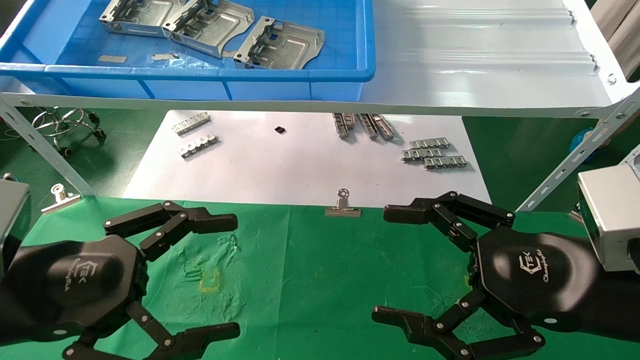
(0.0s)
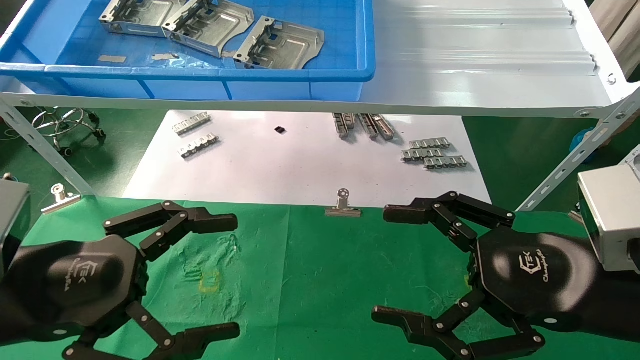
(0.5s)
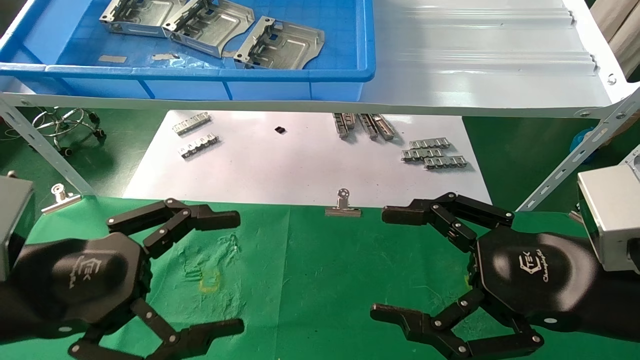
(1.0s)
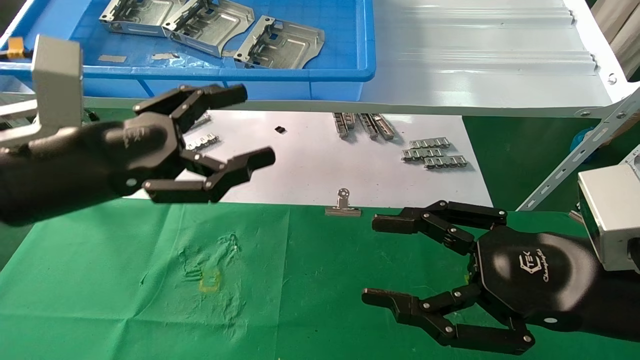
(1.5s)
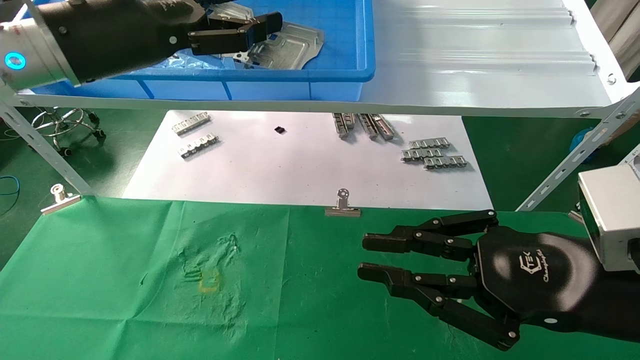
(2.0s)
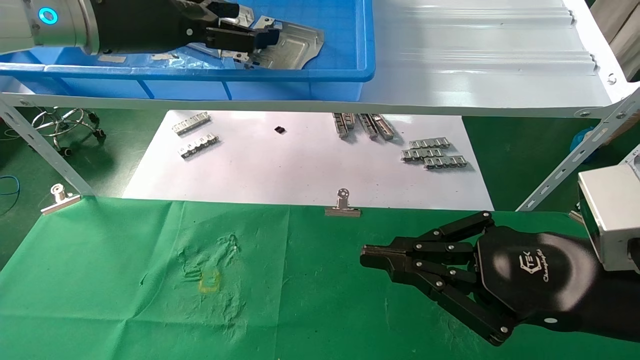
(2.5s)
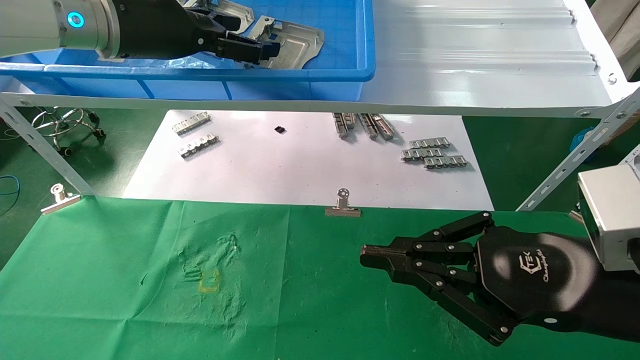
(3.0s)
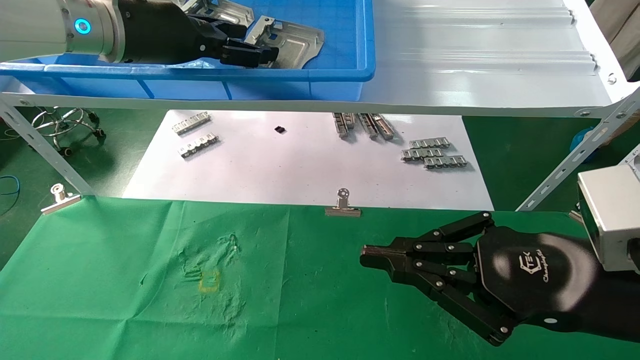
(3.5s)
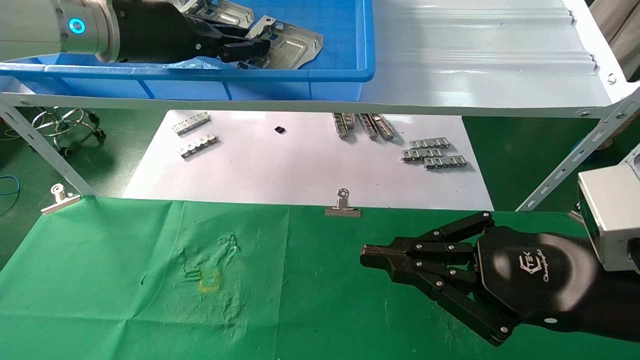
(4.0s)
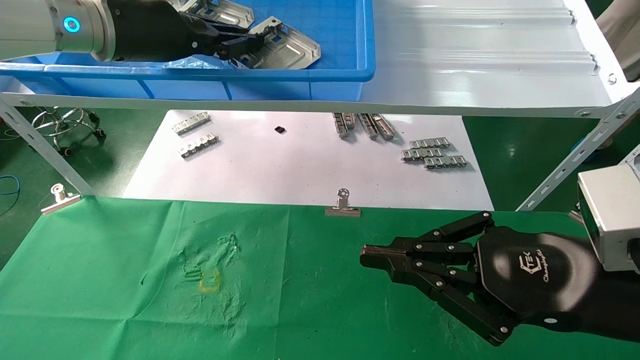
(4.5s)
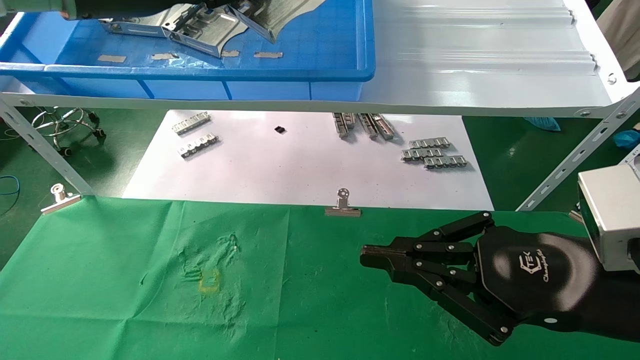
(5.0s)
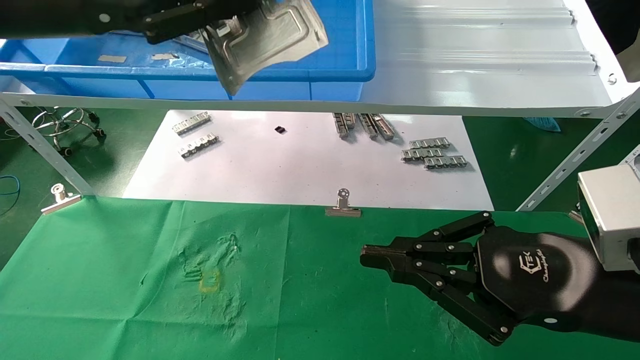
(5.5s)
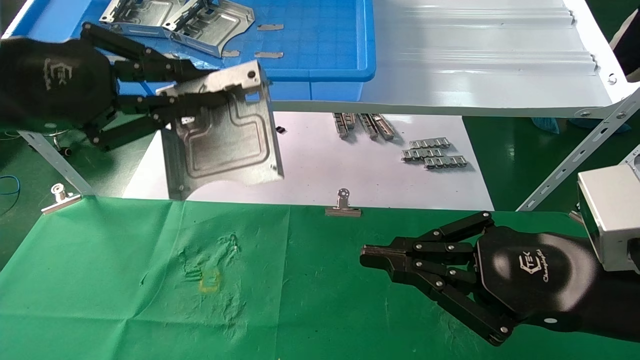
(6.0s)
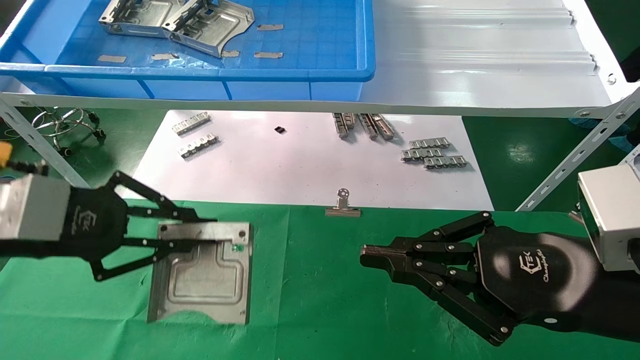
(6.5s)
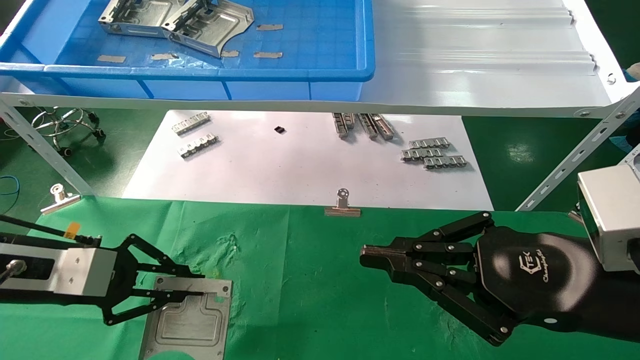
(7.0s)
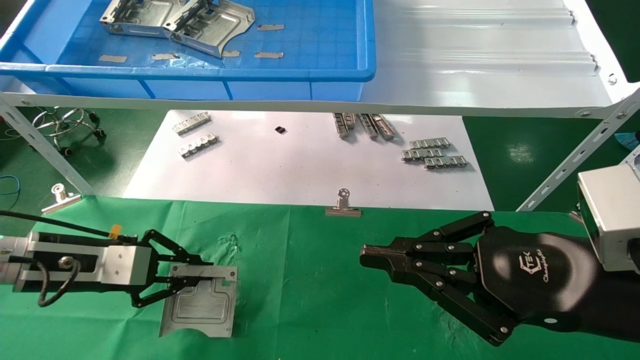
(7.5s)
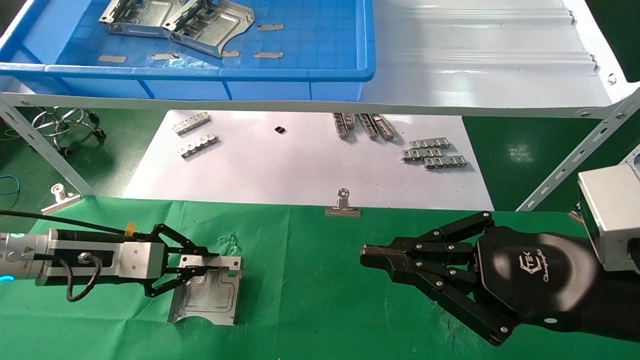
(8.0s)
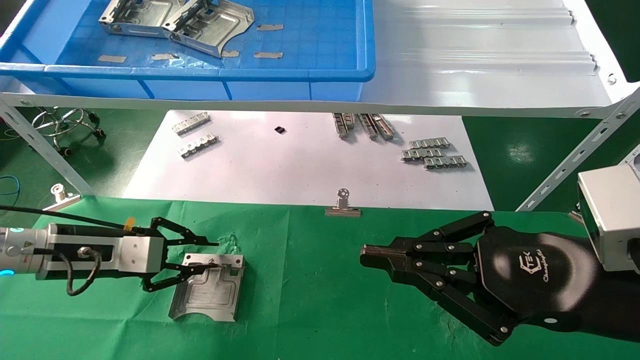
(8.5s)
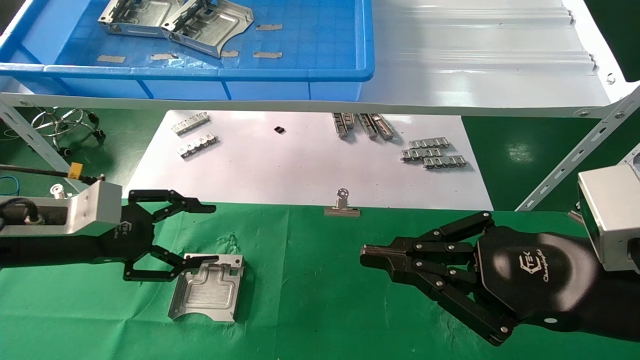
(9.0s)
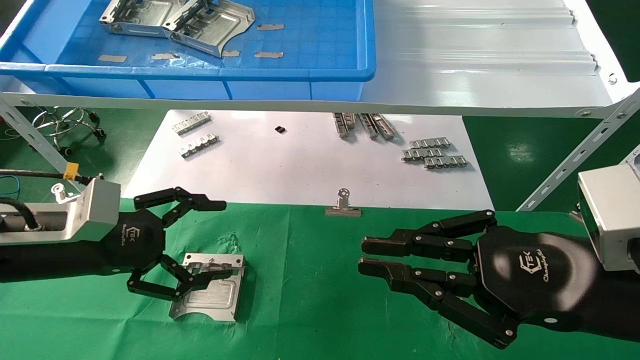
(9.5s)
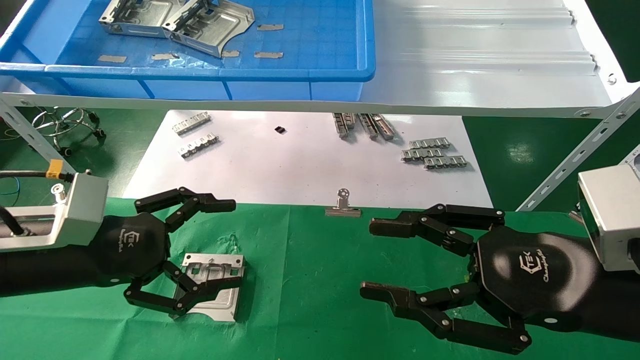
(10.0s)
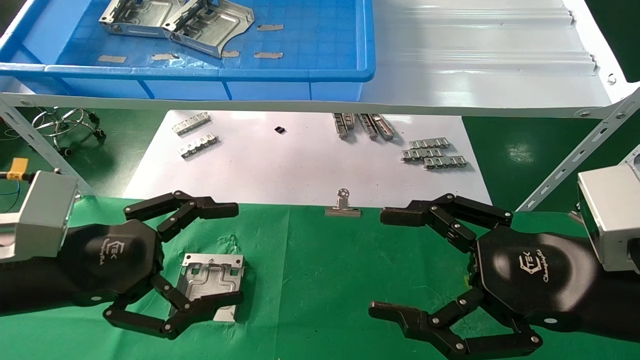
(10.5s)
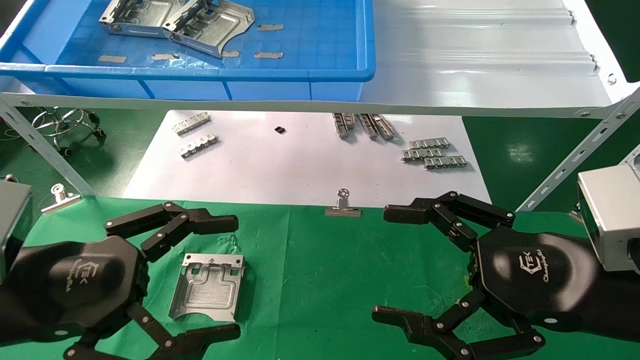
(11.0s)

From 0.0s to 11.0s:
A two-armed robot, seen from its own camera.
Task of the whole recording: use the mechanical arm to pick up the parts and place them on the table.
Step, from 1.5s to 4.0s: Pick up the hard drive bracket from the feeding area.
Step, from 4.5s to 8.5s: Place the hard drive bracket into the box.
From 0.0s to 2.0s: The right gripper closes. Meanwhile the left gripper is displaced upward and forward by about 25 cm.
From 2.0s to 3.5s: The left gripper moves forward, approximately 5 cm.
From 3.5s to 5.5s: The left gripper goes roughly 10 cm backward and to the left, and closes.
From 5.5s to 7.5s: The left gripper heads downward, covering approximately 30 cm.
From 7.5s to 9.0s: The left gripper opens up.
From 9.0s to 11.0s: The right gripper opens. Meanwhile the left gripper heads backward and to the right, covering some 15 cm, and opens up.

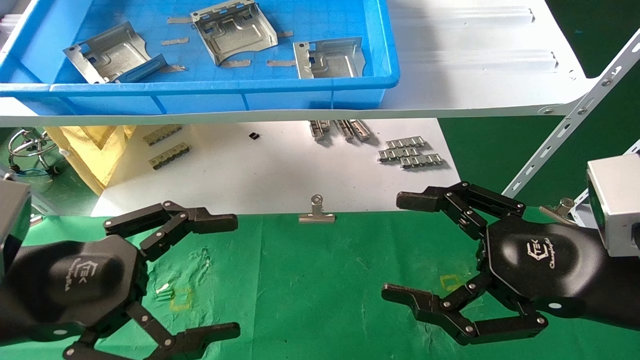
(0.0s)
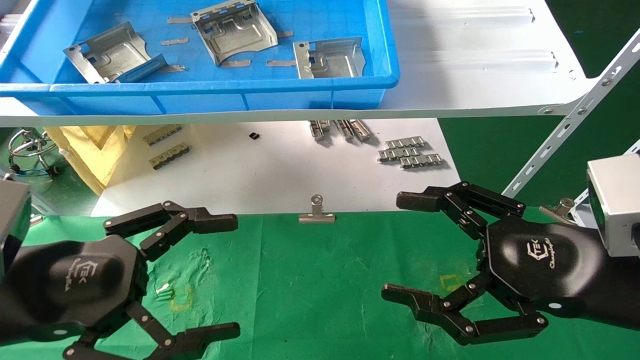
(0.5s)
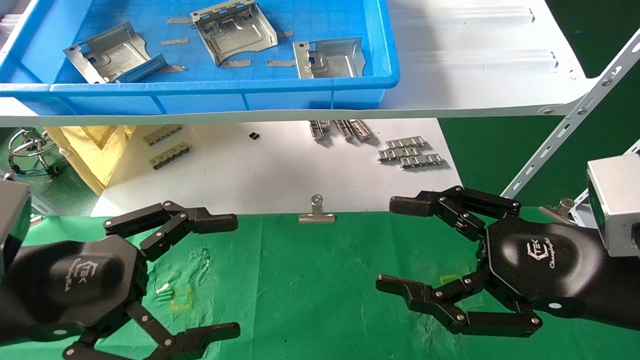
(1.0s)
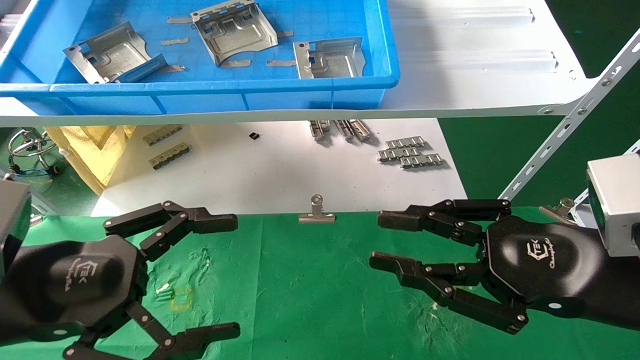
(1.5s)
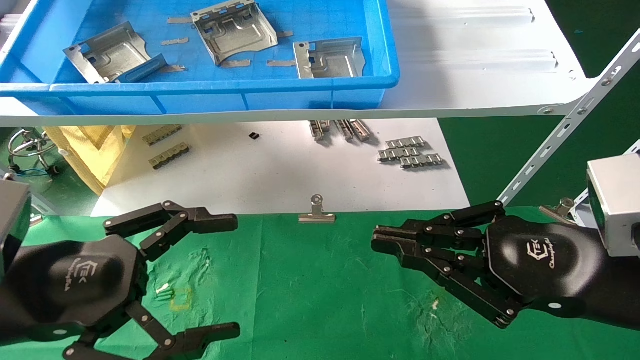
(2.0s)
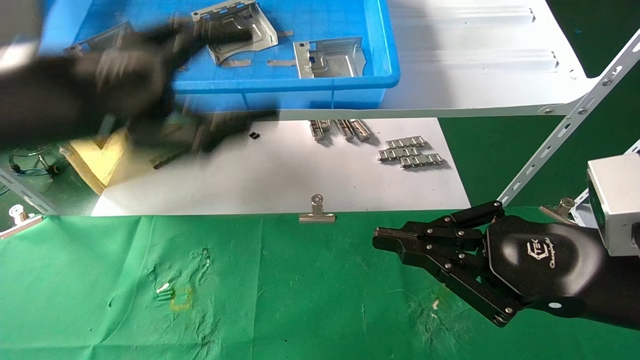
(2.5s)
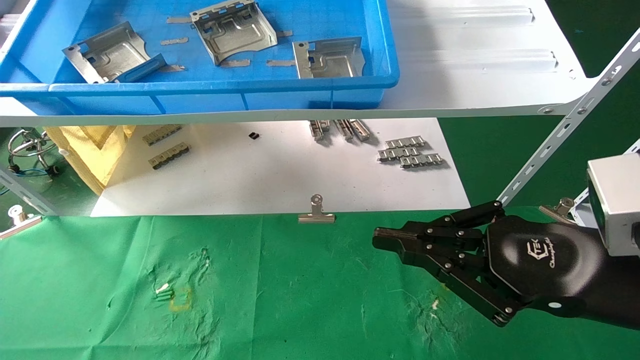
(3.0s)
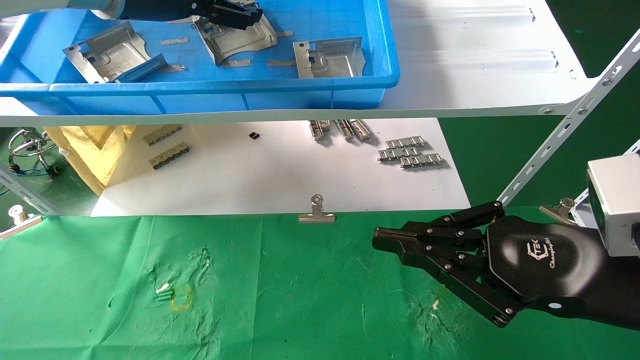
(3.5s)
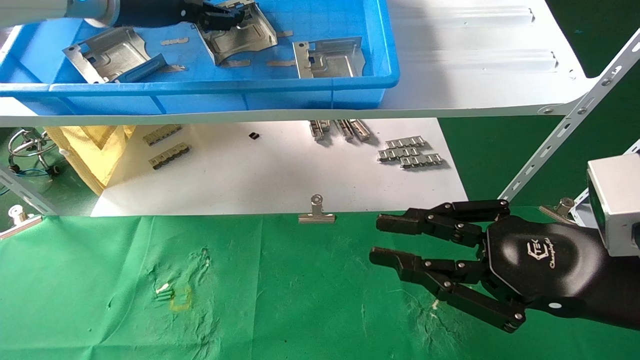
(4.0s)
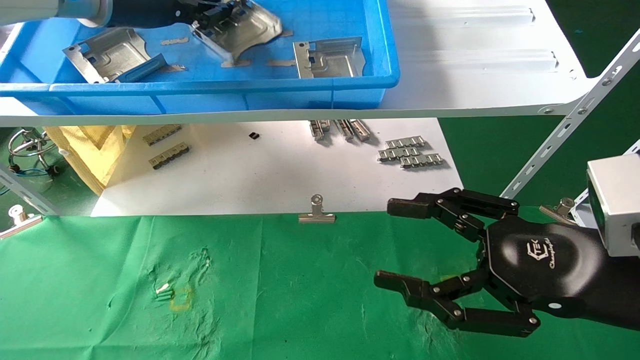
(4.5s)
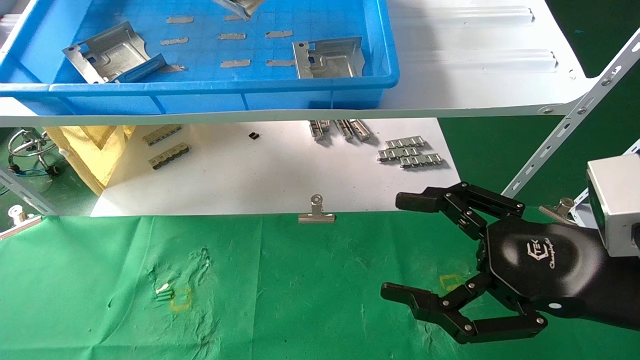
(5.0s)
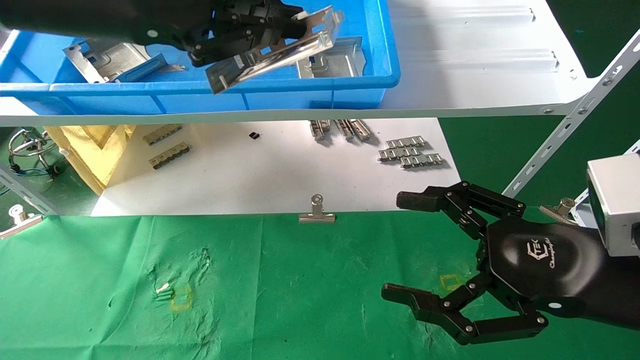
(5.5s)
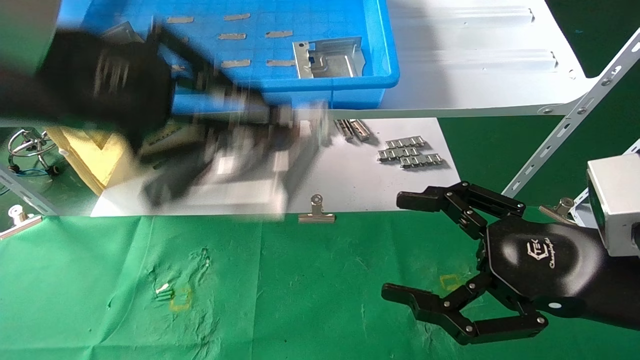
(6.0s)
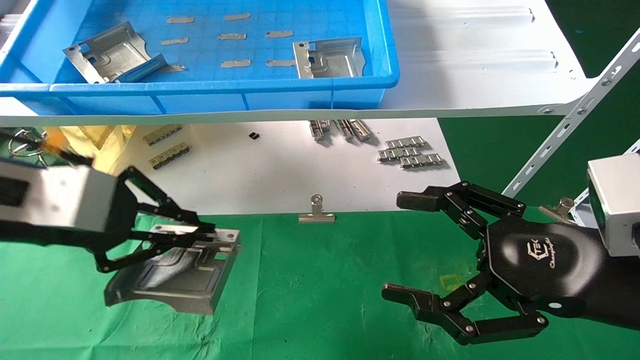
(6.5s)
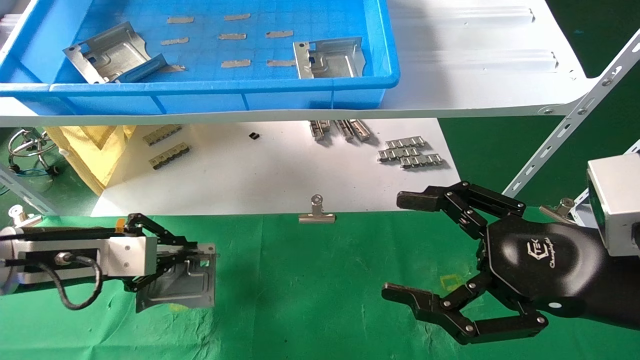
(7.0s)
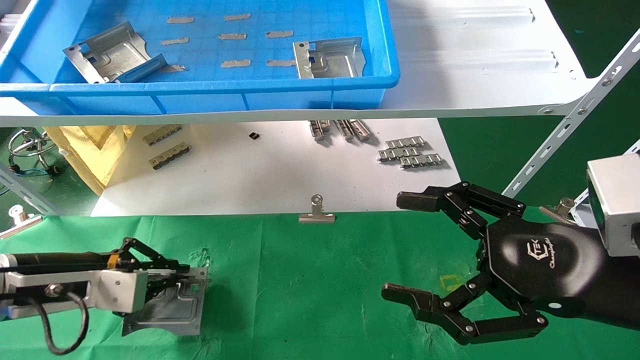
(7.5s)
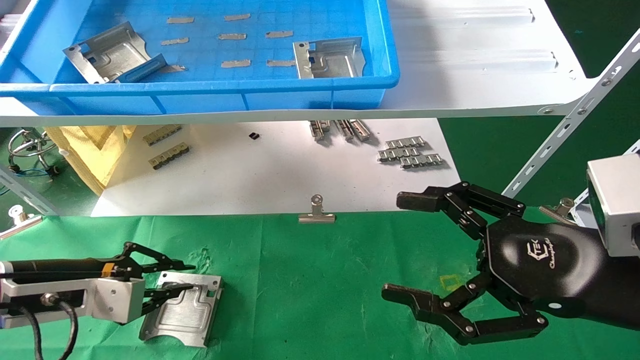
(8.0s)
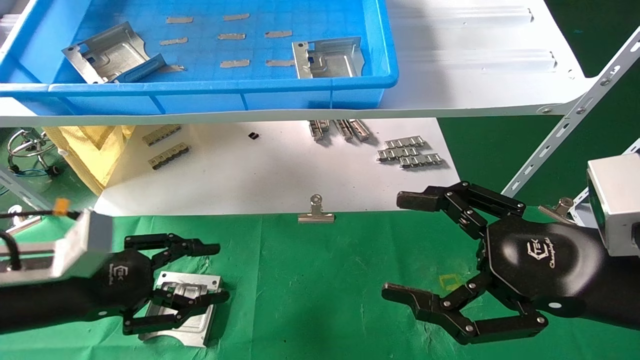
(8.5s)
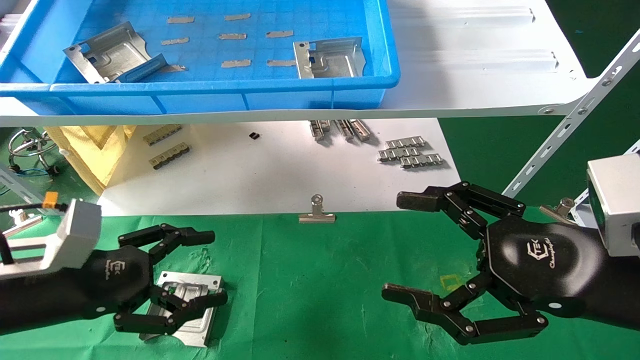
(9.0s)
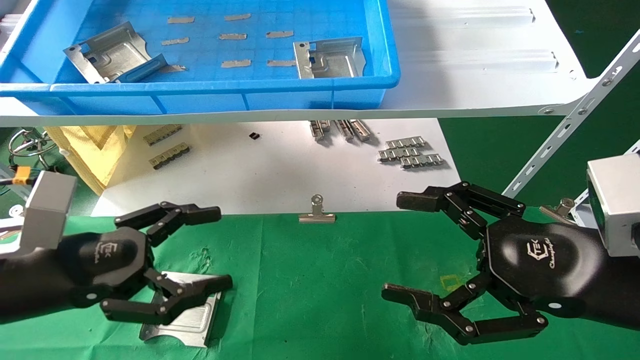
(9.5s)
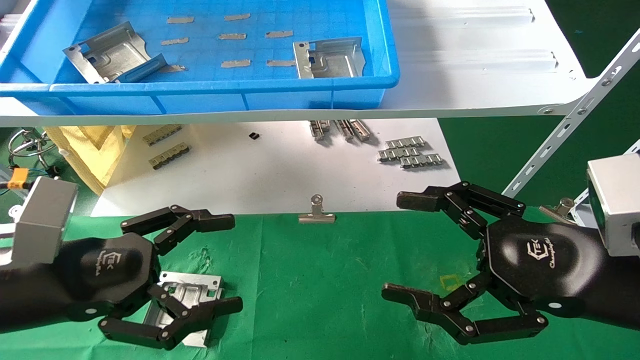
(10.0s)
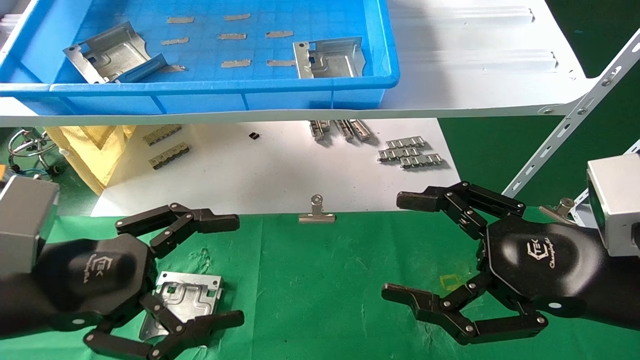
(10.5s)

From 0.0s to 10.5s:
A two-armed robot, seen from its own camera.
Task of the whole recording: use the mechanical arm to pick up the parts and place them on the table.
Step, from 2.5s to 4.5s: Pick up the hard drive bracket from the feeding area.
Step, from 5.0s to 8.0s: Place the hard drive bracket into the box.
From 0.0s to 2.0s: The right gripper closes its fingers.
From 2.0s to 4.0s: The left gripper heads upward and forward, covering roughly 35 cm.
From 4.0s to 6.5s: The left gripper travels backward and downward by roughly 25 cm, and closes up, while the right gripper opens.
From 6.5s to 8.5s: The left gripper shifts roughly 15 cm downward, and opens up.
From 8.5s to 10.5s: The left gripper moves backward, about 5 cm, and opens its fingers.
